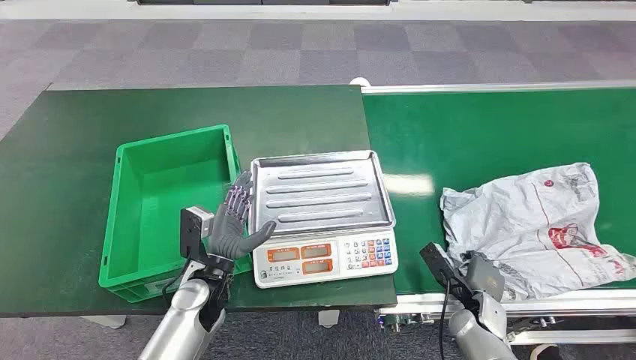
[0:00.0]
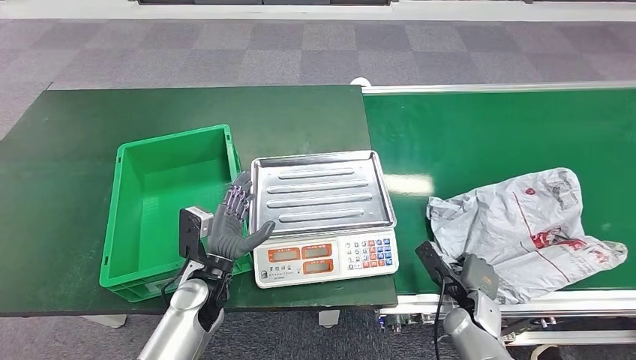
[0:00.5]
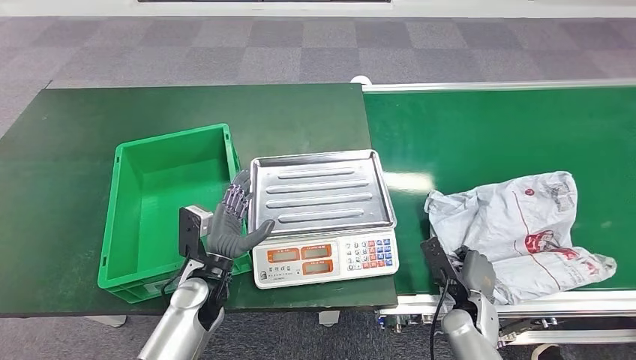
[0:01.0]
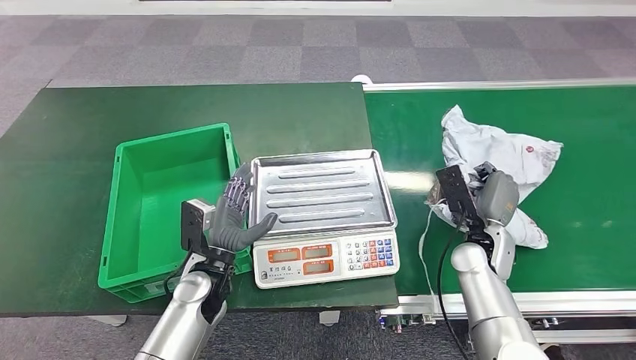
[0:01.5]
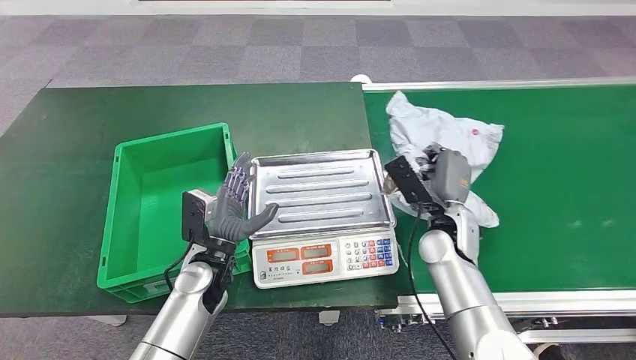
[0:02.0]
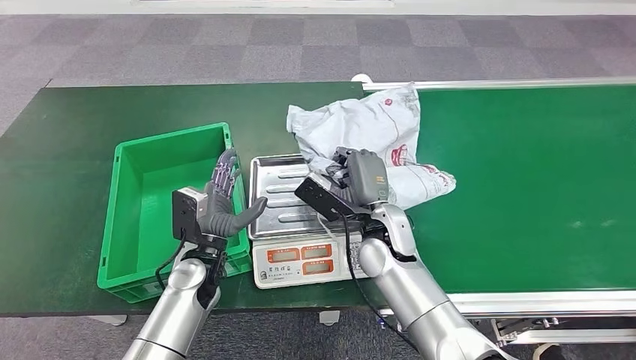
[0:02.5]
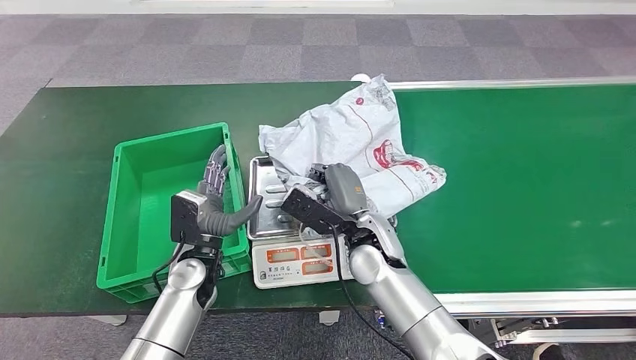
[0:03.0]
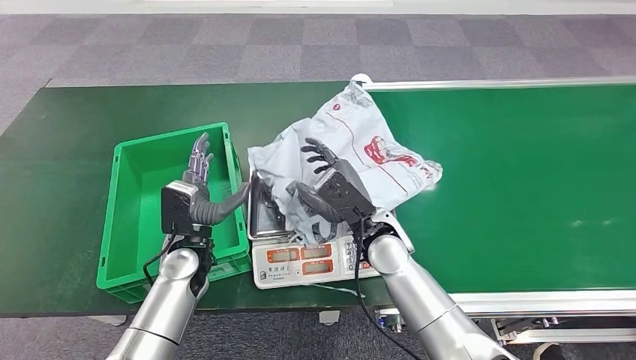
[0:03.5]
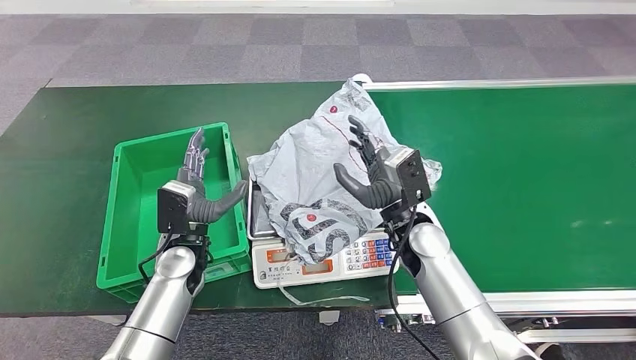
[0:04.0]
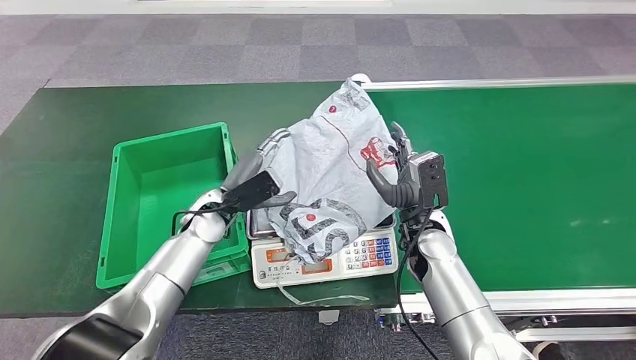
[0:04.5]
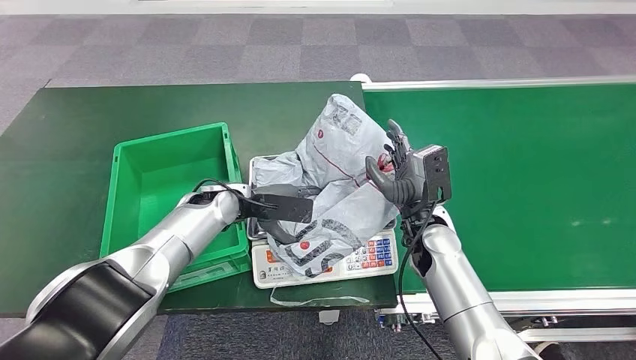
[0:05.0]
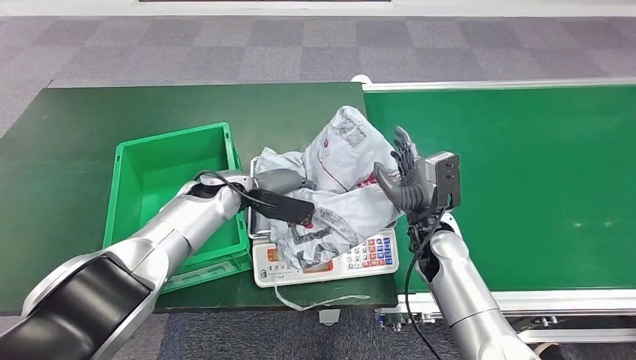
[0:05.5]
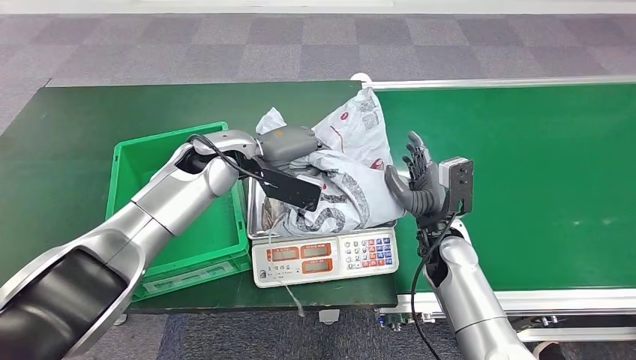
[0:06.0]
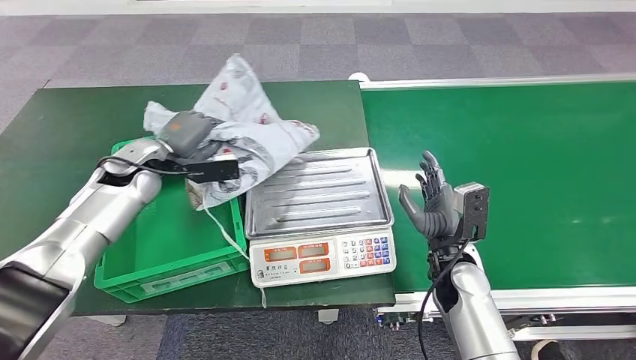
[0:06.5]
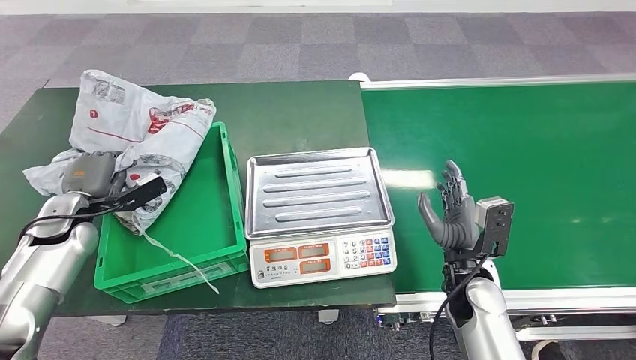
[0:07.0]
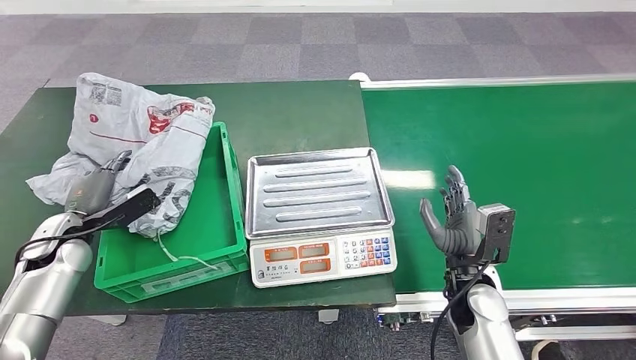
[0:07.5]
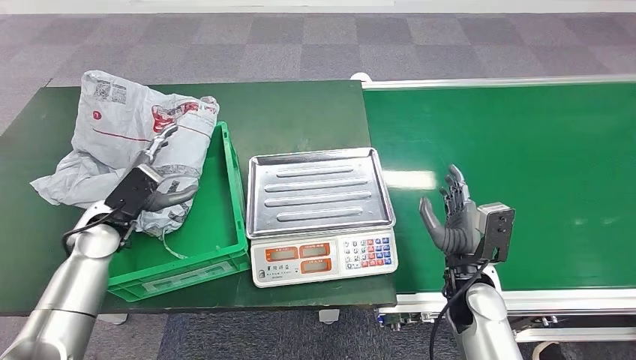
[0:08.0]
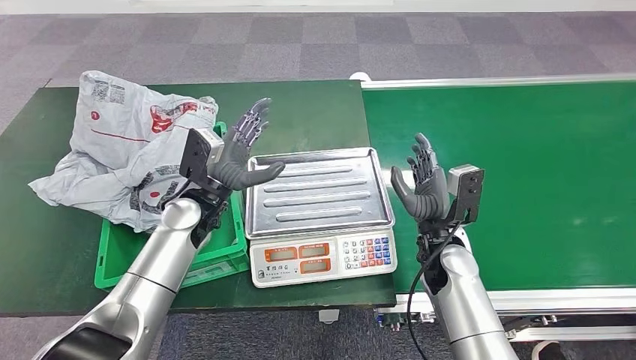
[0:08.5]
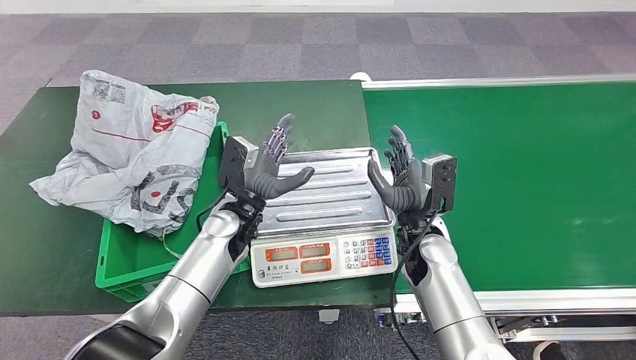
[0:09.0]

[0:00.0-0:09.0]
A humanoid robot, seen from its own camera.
Step, 0:00.0 to 0:01.5: Pick up the package from the conveyor belt.
Step, 0:02.0 to 0:03.5: Place the package onto the inbound machine.
Step, 0:04.0 to 0:06.0: Pick up the package from the inbound machine.
Step, 0:06.5 to 0:09.0: Place the package into the parcel locker.
